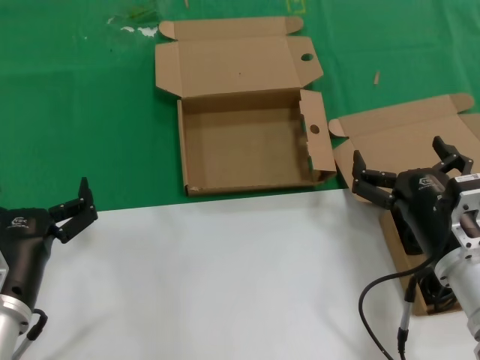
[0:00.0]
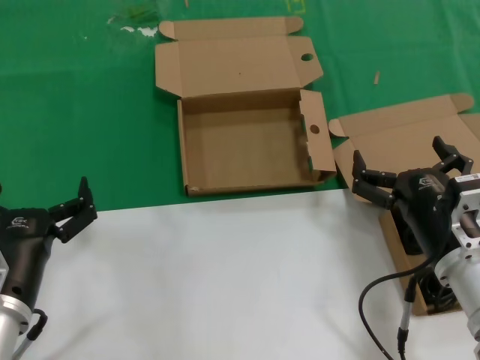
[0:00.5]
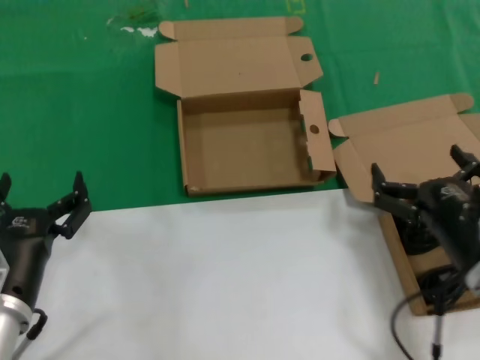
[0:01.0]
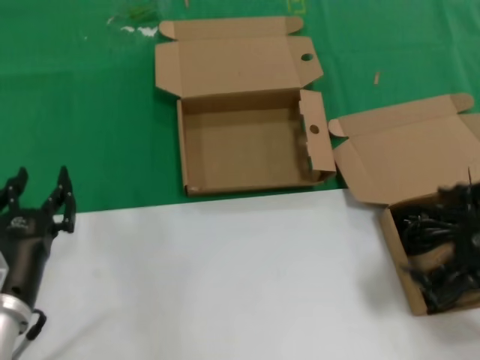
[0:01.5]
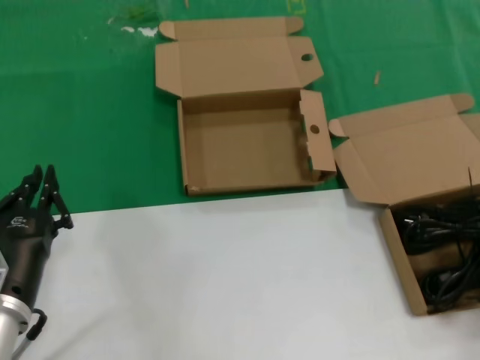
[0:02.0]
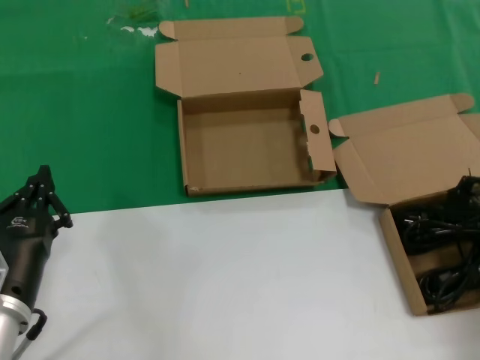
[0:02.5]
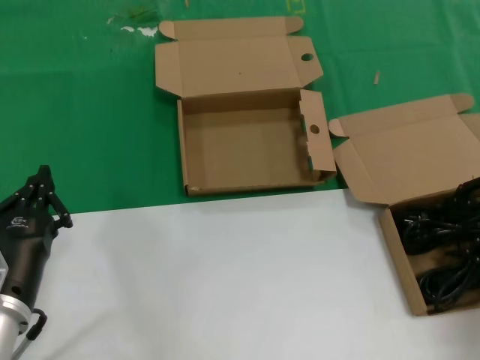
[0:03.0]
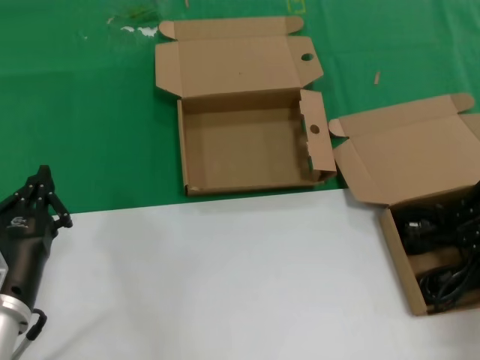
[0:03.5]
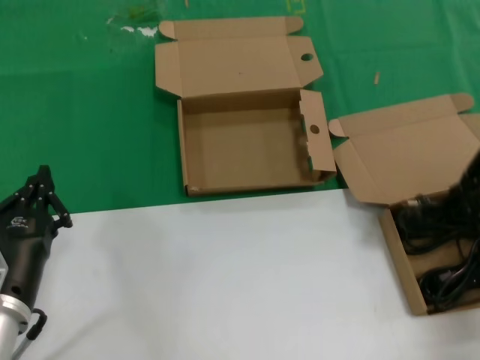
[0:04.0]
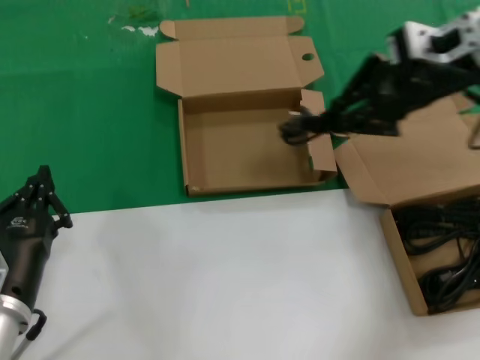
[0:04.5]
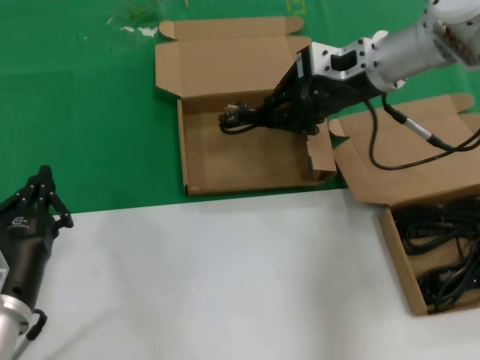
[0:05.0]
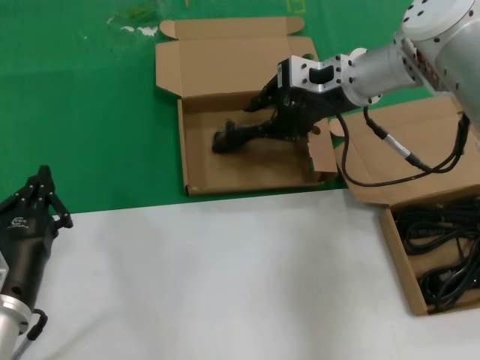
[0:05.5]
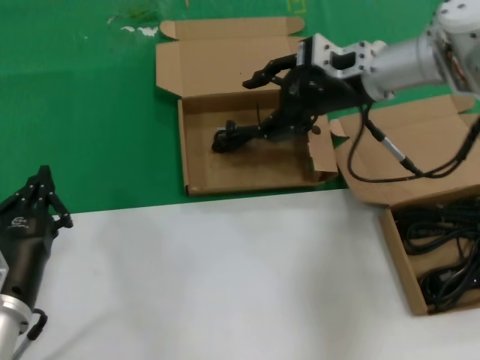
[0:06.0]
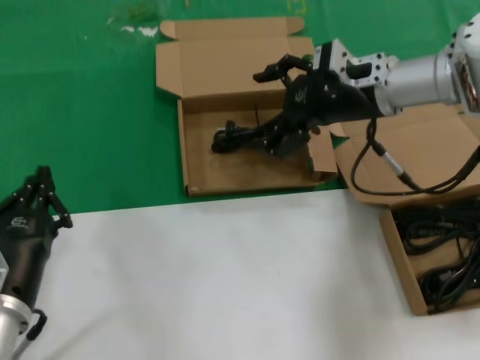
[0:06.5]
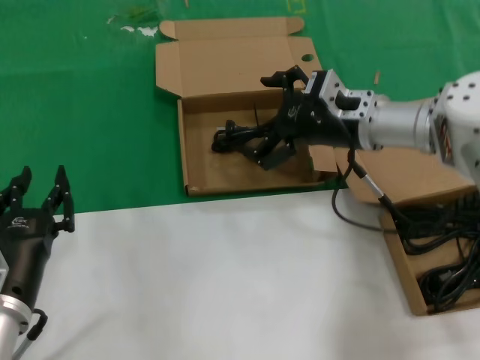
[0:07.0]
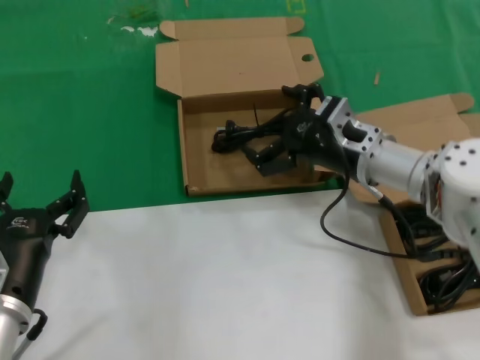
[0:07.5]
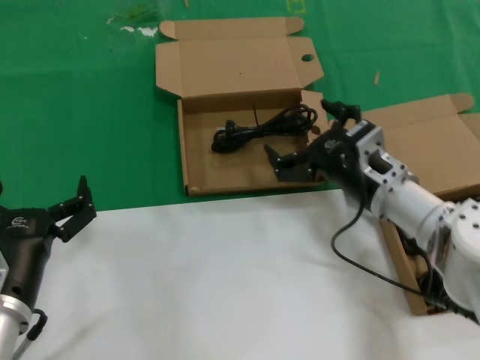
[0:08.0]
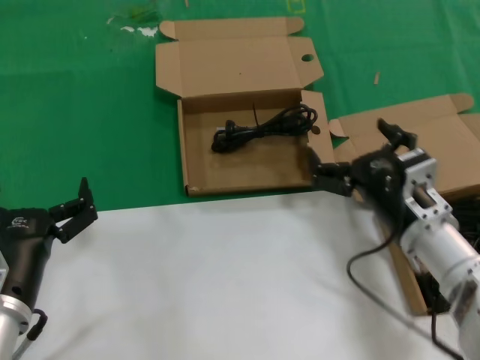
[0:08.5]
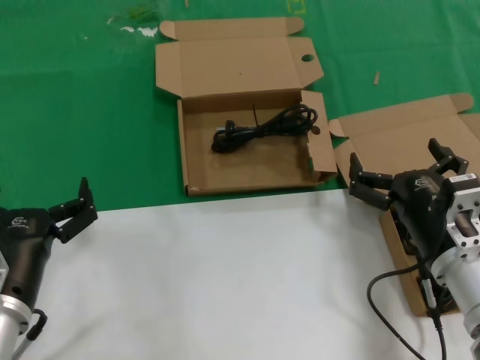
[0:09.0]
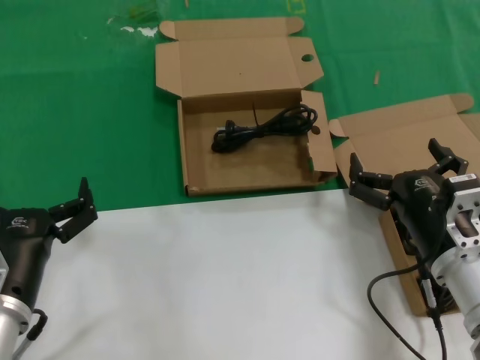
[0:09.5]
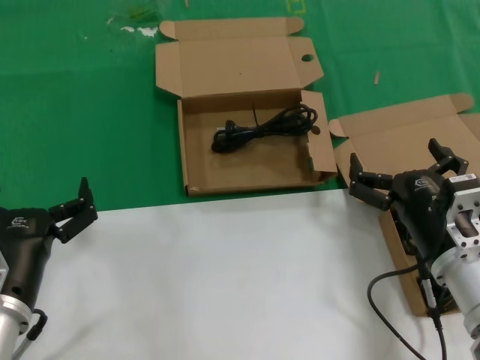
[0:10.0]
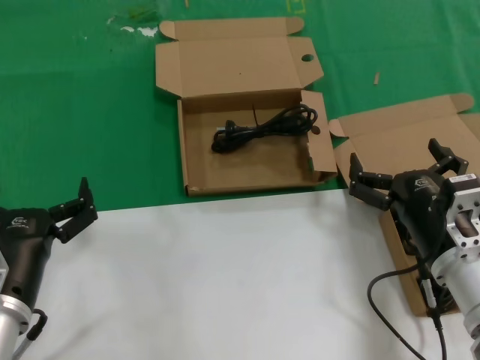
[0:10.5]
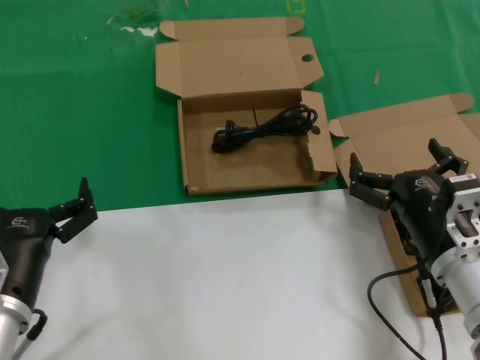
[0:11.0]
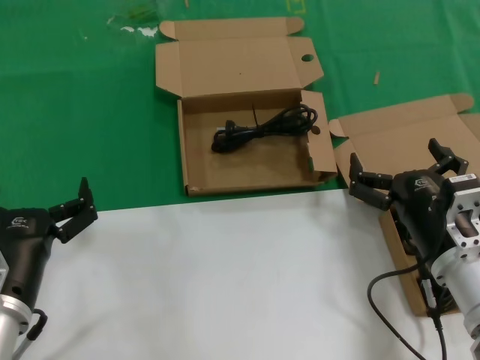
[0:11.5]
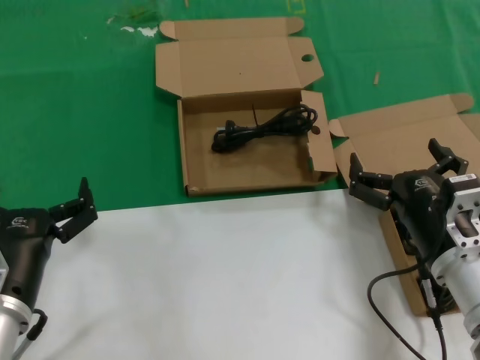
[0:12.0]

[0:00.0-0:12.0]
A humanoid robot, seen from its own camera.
Task of the whole recording: take the parts from the box containing them and put them into an empty box.
Step, 0:00.0 to 0:03.5: Grasp the data cable.
Step, 0:04.0 to 0:06.0: Place the data cable in the another box.
0:00.0 to 0:02.0: The right hand moves to the right and upward, approximately 20 cm.
0:02.0 to 0:04.0: The right hand is displaced upward and forward by about 15 cm.
0:04.0 to 0:06.0: The right hand is displaced to the left and forward by some 25 cm.
0:06.0 to 0:08.0: The right hand moves downward and backward, about 20 cm.
0:08.0 to 0:10.0: The right hand travels backward by some 10 cm.
0:10.0 to 0:12.0: Both hands stay put.

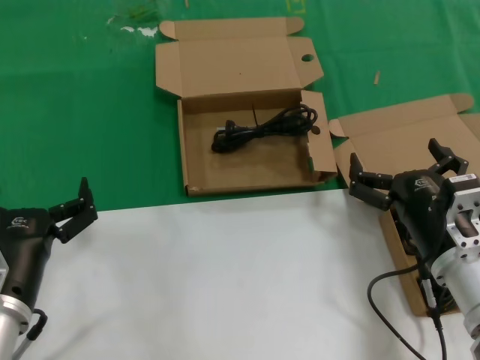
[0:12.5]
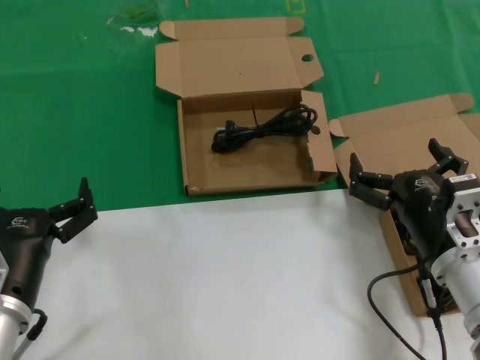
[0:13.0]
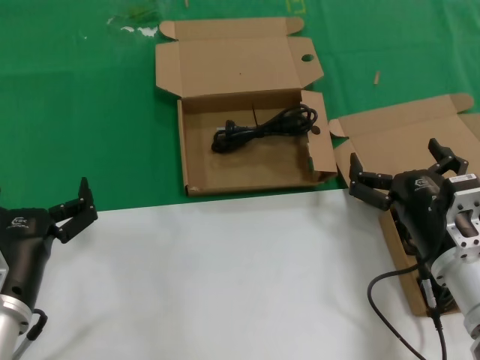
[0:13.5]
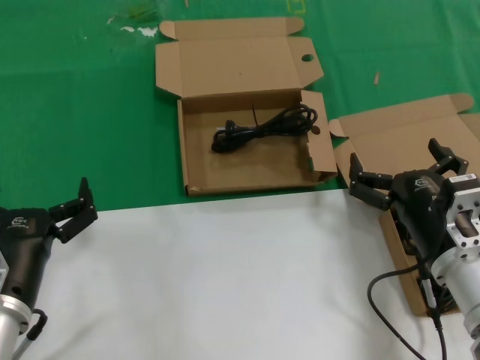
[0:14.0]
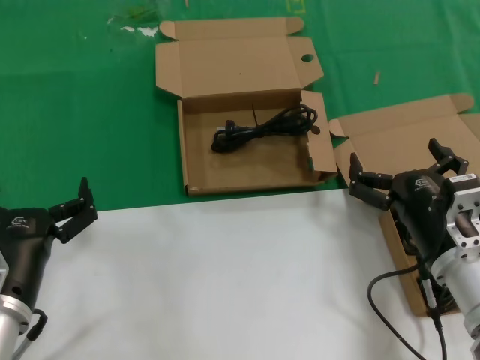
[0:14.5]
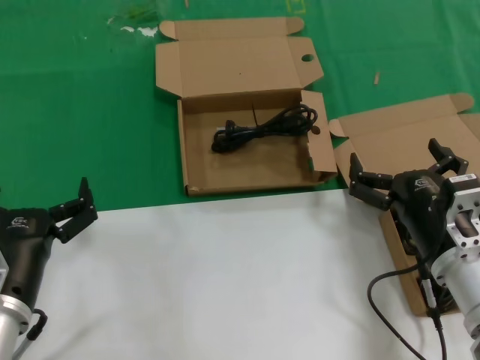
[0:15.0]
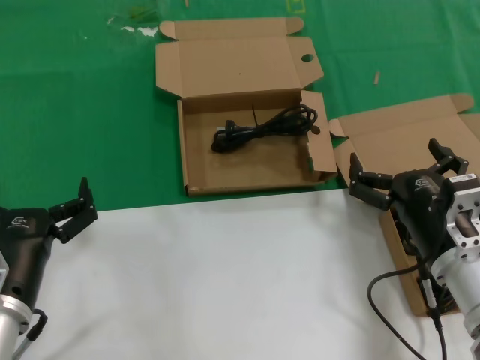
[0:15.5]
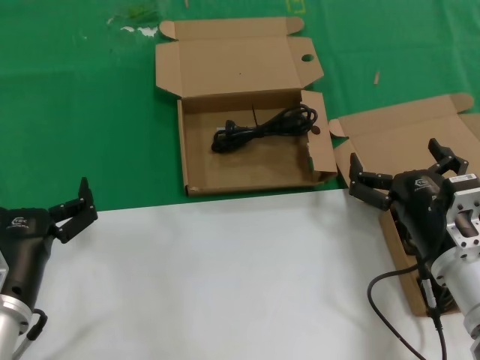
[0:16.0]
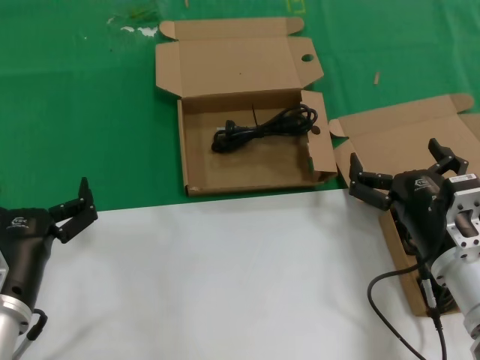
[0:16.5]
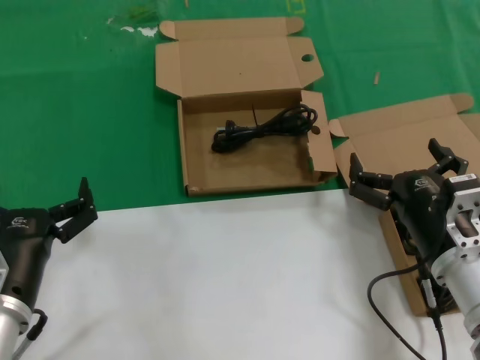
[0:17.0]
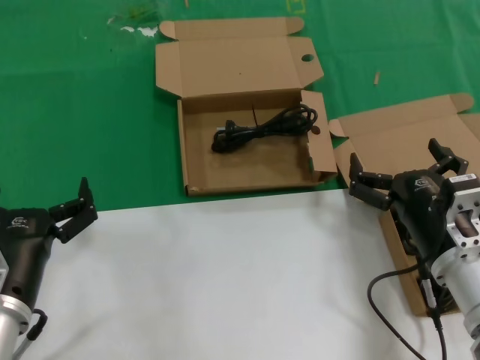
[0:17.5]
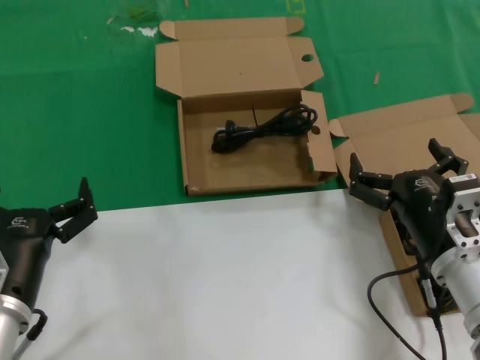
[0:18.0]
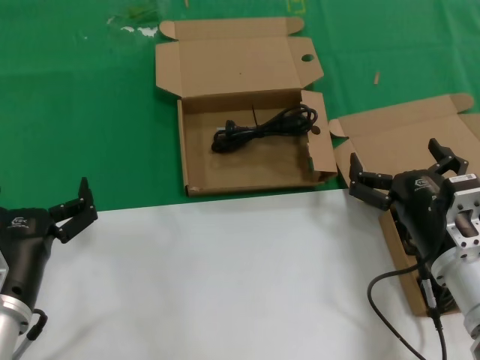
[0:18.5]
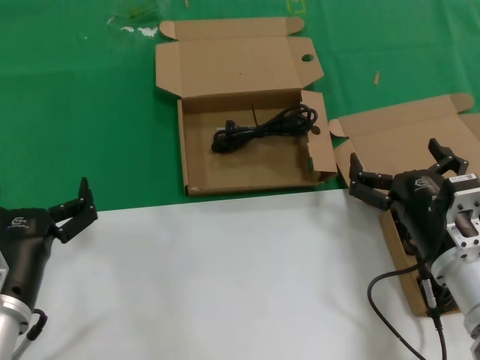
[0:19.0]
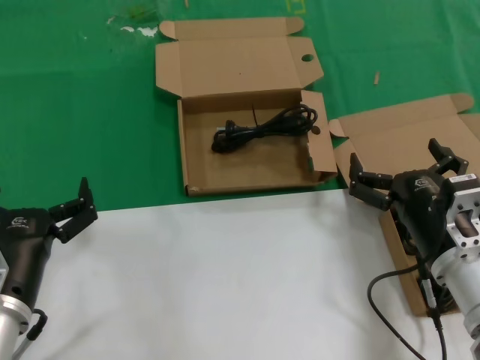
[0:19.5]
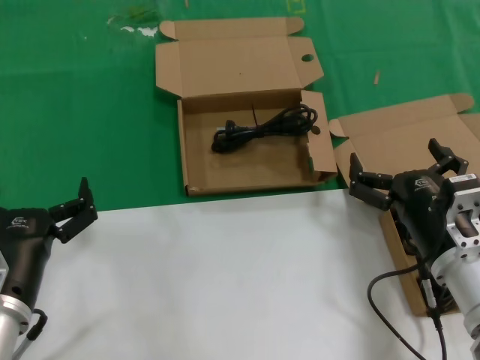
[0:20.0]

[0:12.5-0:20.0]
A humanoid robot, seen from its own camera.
Task of the whole recording: take the parts from the box containing them and put them into an empty box.
0:12.5 to 0:20.0: Neither hand changes place.

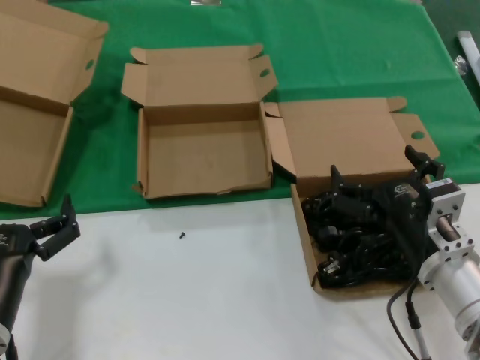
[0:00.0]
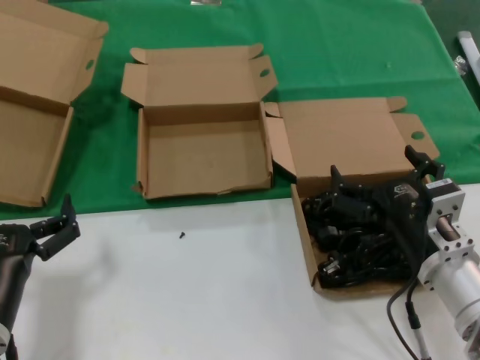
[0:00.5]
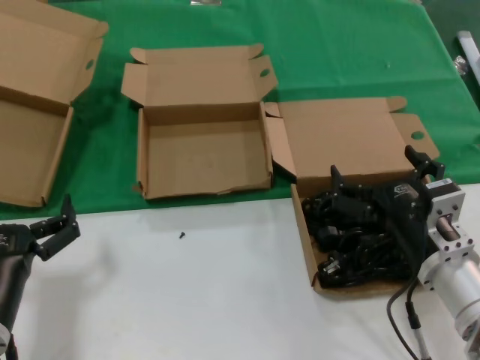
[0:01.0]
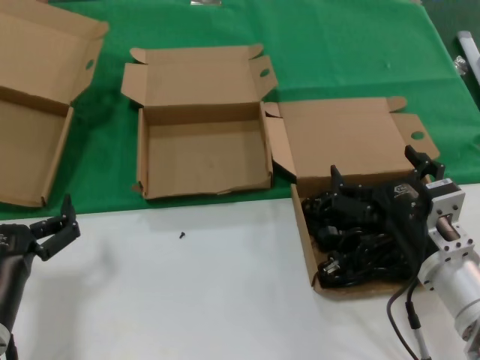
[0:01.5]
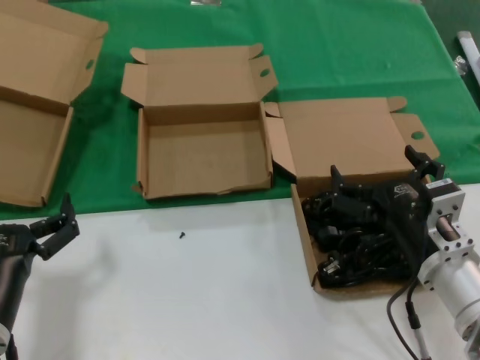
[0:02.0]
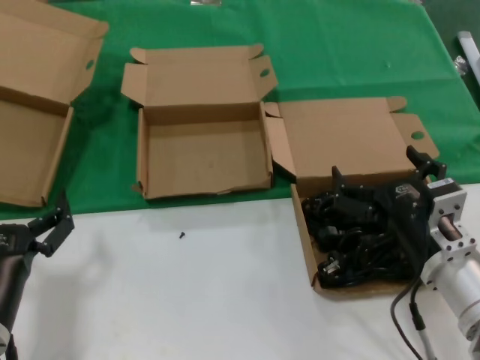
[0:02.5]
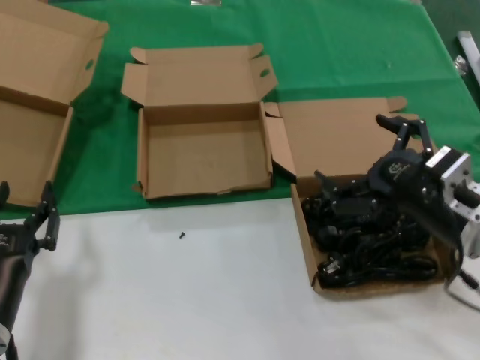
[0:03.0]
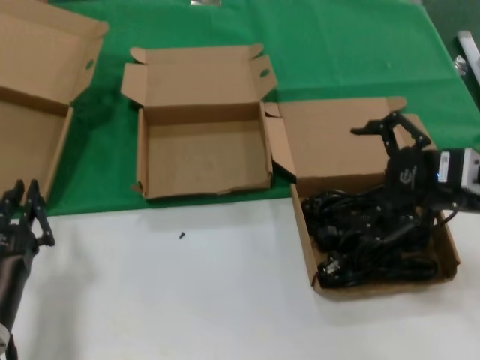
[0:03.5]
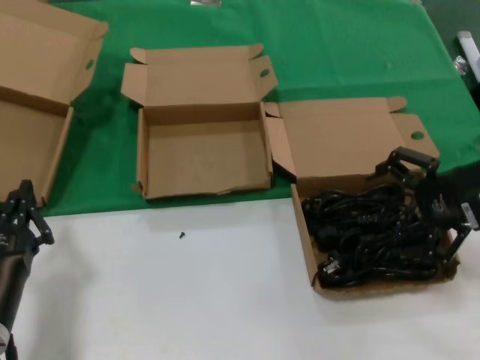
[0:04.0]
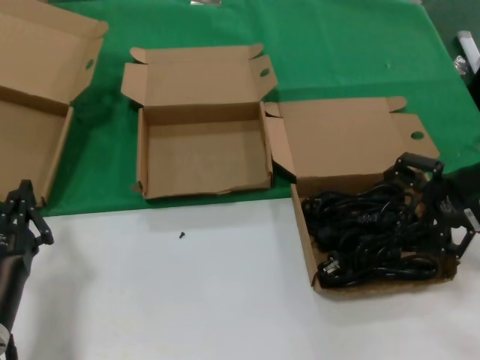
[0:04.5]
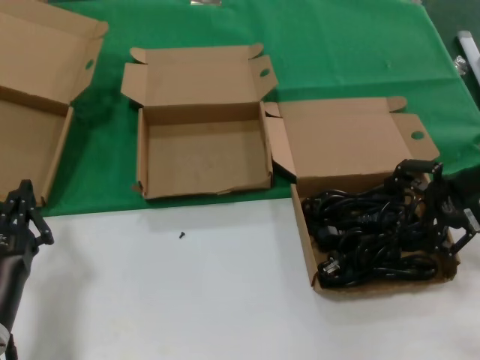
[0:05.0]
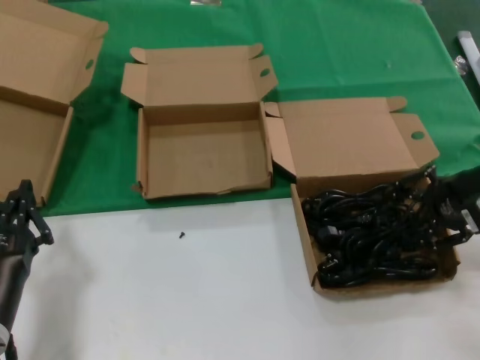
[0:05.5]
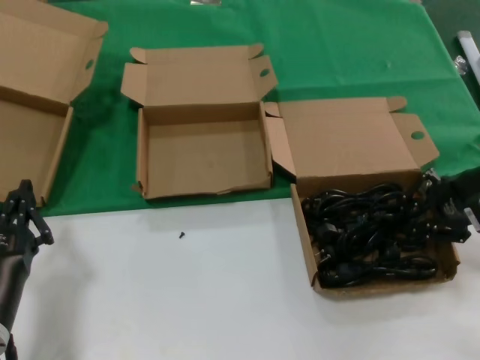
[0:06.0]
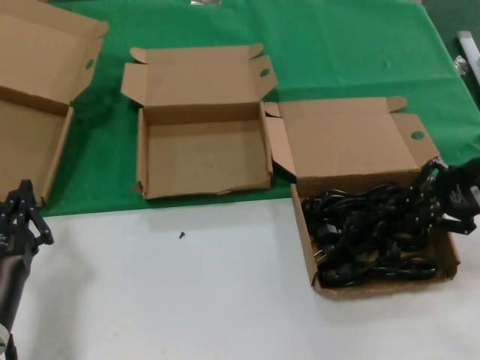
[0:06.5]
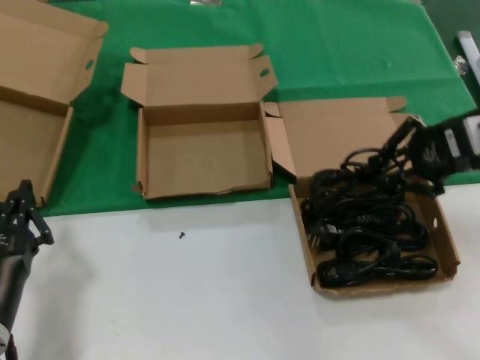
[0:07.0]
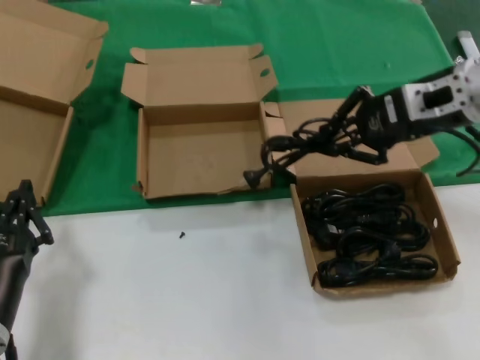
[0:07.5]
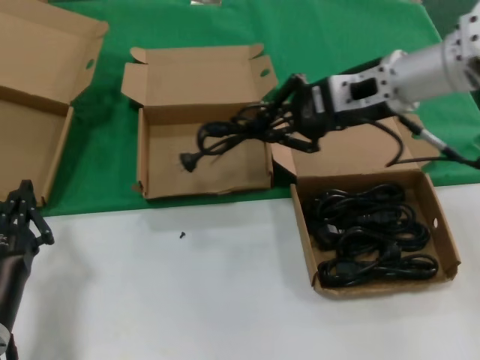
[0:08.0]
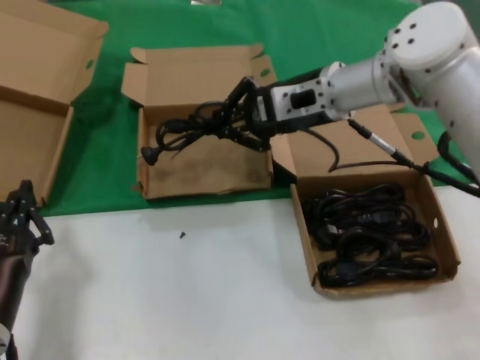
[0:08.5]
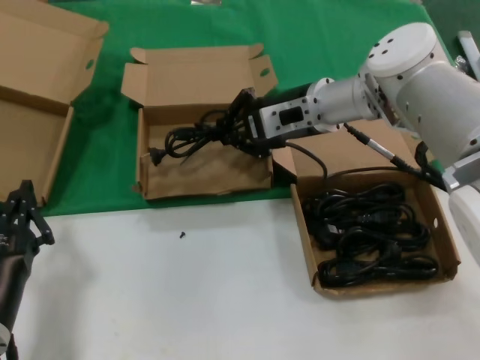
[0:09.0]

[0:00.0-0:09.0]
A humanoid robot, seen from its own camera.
Task of the whole recording: take the parts from the box containing them and put them into an empty box.
Step, 0:00.0 to 0:06.0: Grasp the data cable.
0:00.0 to 0:02.0: Both hands stay put.
0:02.0 to 0:04.5: The right hand goes some 25 cm upward, to the right and forward.
0:04.5 to 0:07.0: The right hand shifts about 5 cm upward.
0:07.0 to 0:09.0: The right hand travels to the left and forward by about 25 cm.
